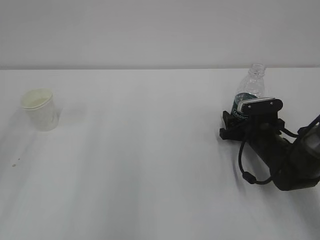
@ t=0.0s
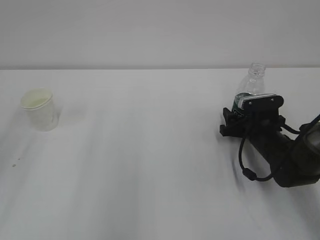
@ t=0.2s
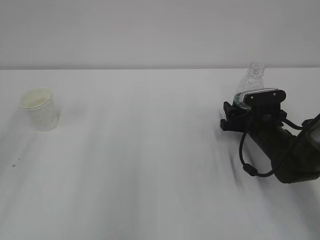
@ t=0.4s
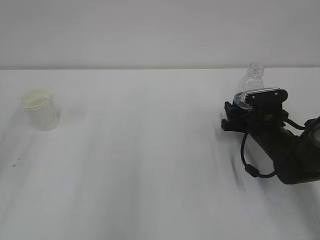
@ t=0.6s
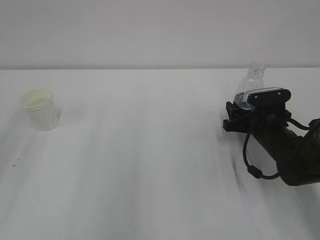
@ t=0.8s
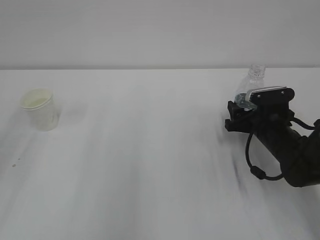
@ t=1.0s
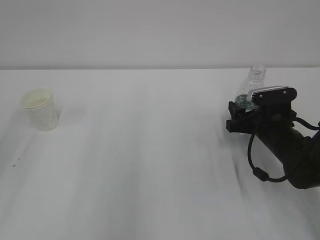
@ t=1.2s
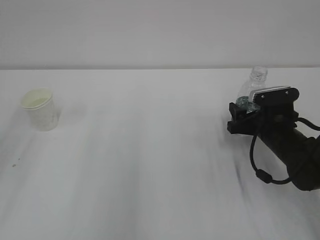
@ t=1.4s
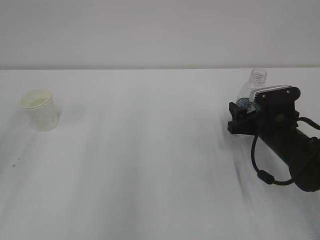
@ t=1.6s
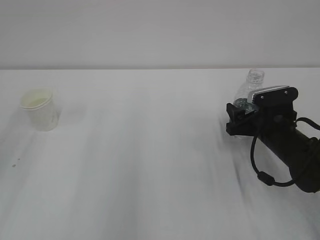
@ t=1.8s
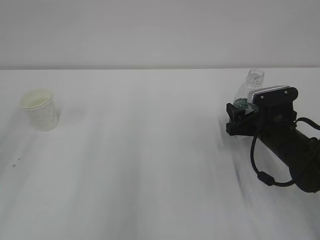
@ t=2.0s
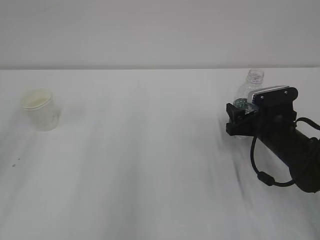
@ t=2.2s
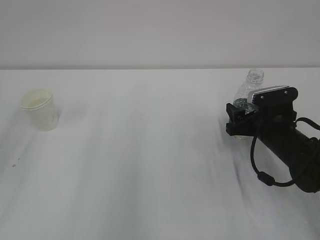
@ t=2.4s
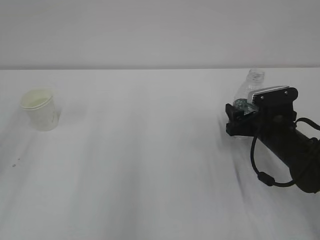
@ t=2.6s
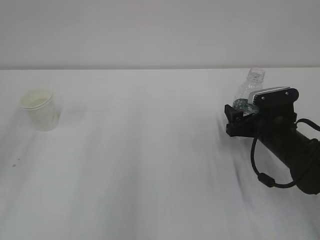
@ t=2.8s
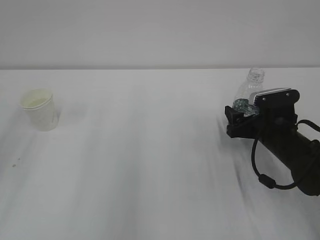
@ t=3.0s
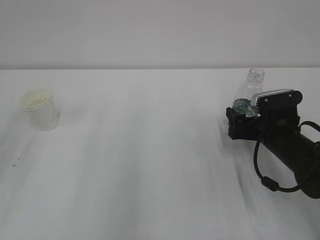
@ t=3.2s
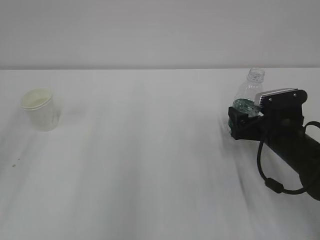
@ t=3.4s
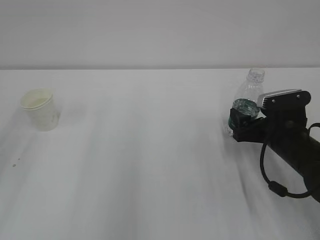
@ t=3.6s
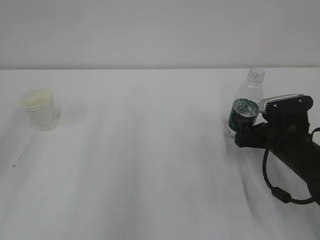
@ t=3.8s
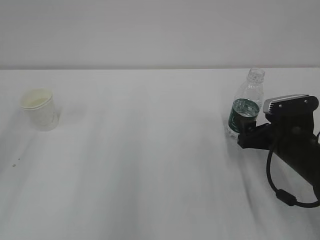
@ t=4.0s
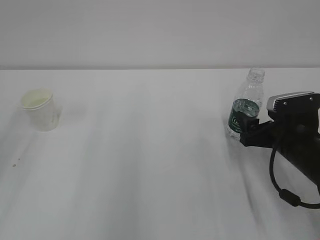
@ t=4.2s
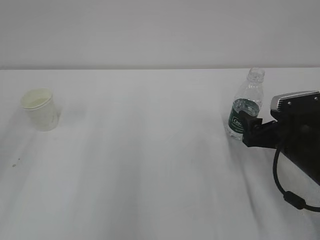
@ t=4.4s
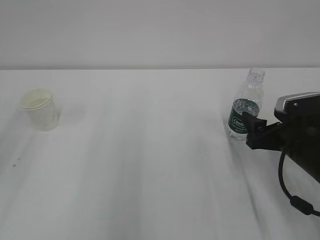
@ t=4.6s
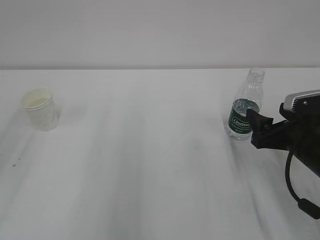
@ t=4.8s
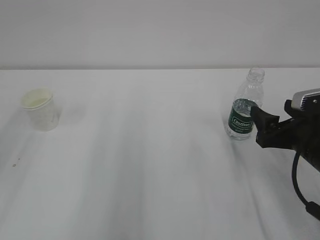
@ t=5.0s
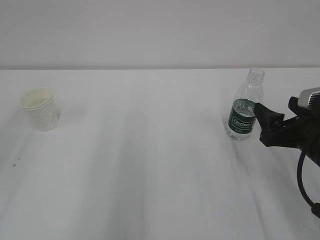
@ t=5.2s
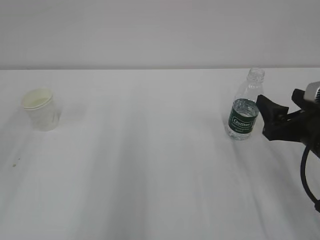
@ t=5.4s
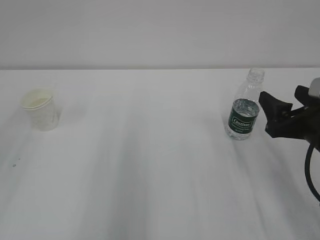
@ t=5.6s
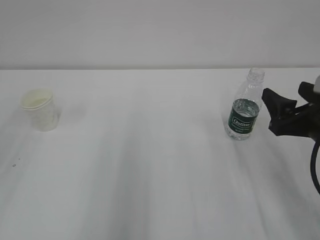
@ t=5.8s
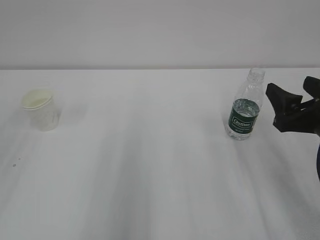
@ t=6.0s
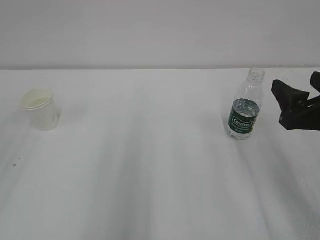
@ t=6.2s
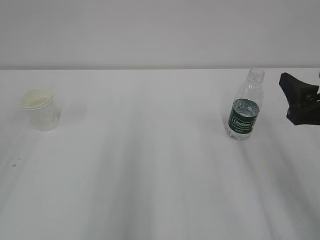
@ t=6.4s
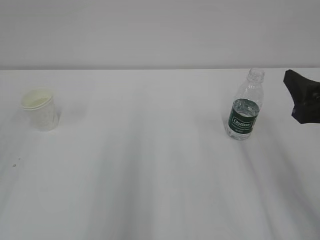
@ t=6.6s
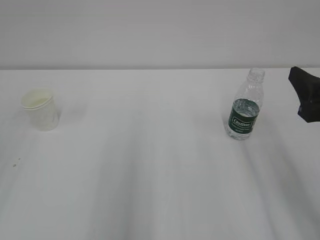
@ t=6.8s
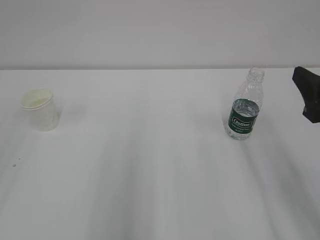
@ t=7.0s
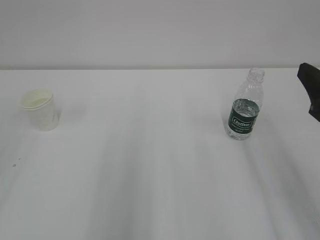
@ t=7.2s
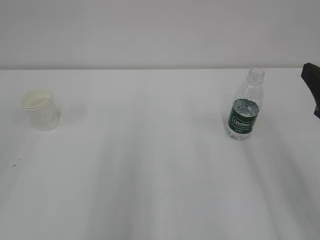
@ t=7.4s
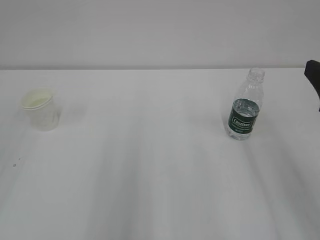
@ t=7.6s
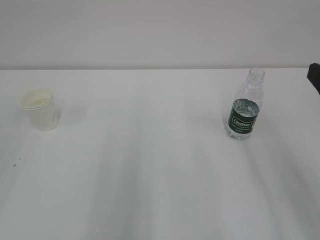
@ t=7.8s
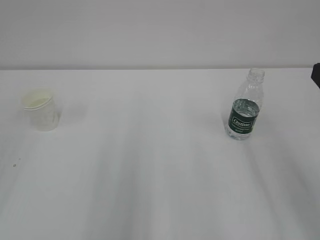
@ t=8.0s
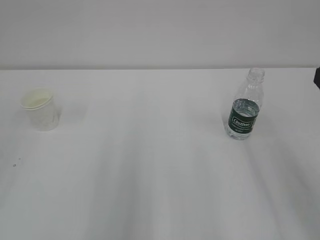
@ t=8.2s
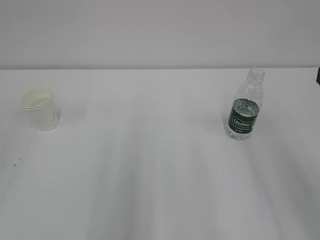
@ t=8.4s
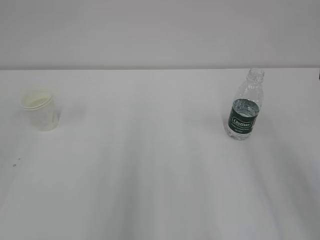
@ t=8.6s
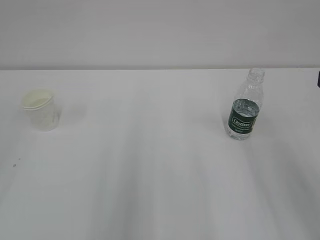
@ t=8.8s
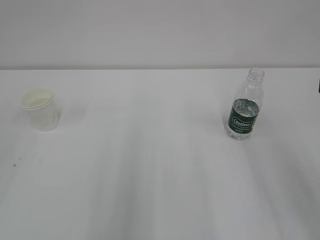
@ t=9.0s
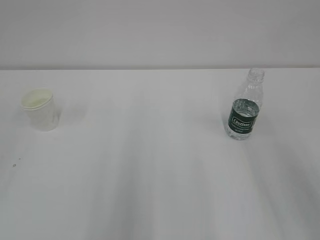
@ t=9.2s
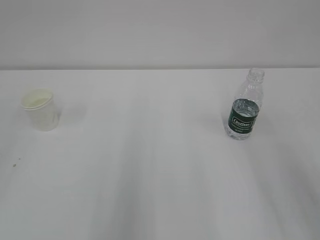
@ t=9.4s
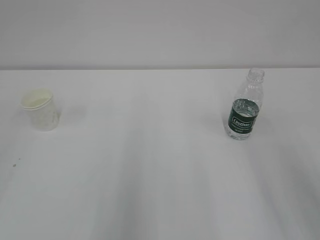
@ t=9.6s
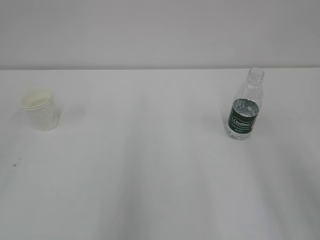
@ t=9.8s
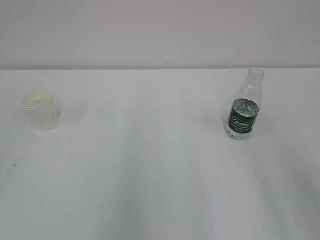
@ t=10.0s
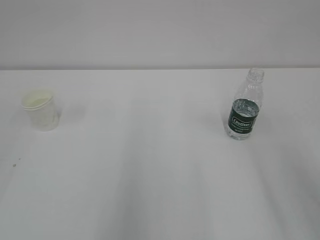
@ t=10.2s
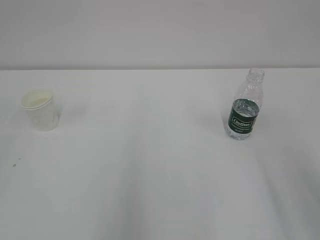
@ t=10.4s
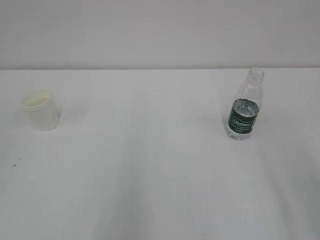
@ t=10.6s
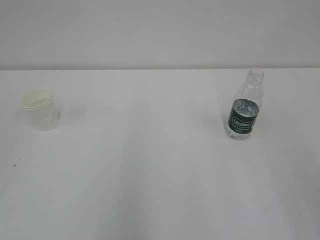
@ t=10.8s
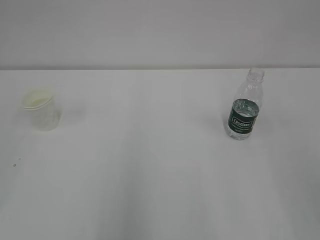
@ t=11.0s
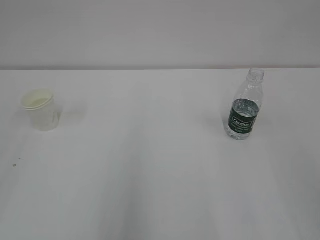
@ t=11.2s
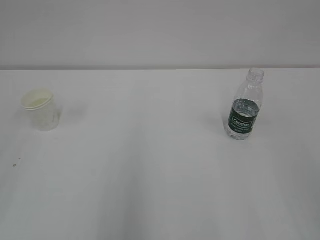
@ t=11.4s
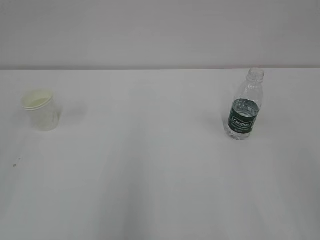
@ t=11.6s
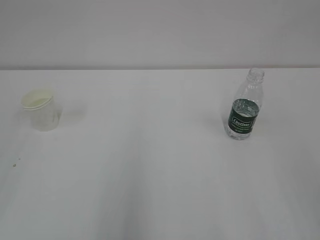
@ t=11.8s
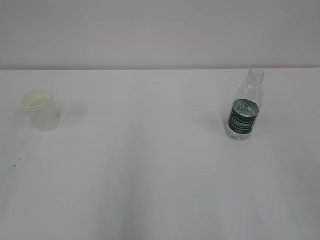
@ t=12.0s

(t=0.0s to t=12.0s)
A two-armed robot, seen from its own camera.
t=0.0s - t=1.6s: The right gripper changes place by approximately 5 cm.
t=1.6s - t=3.0s: The right gripper opens up.
t=3.0s - t=4.4s: The right gripper moves backward, some 5 cm.
t=4.4s - t=6.0s: The right gripper heads upward and backward, covering roughly 10 cm.
t=6.0s - t=7.6s: The right gripper shifts roughly 10 cm upward and backward.

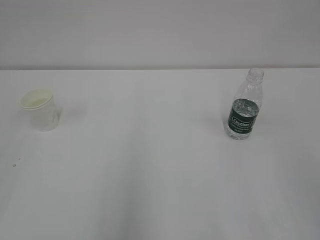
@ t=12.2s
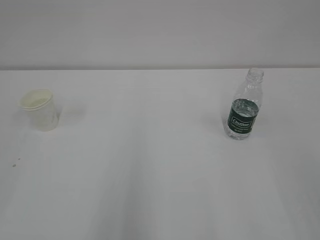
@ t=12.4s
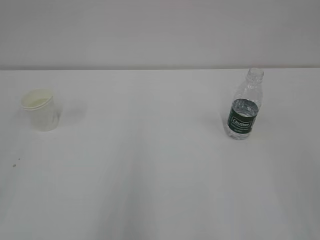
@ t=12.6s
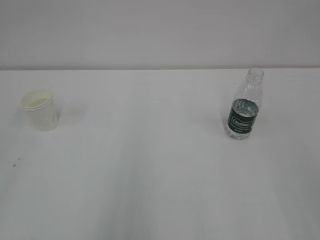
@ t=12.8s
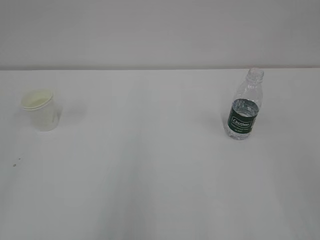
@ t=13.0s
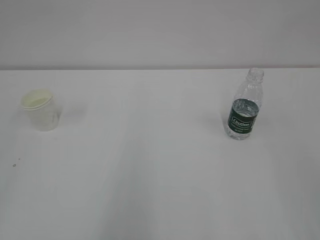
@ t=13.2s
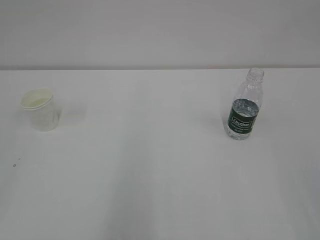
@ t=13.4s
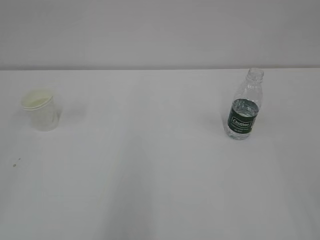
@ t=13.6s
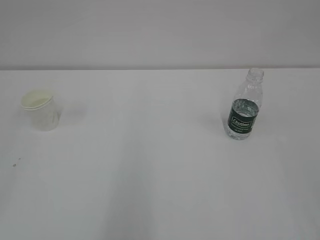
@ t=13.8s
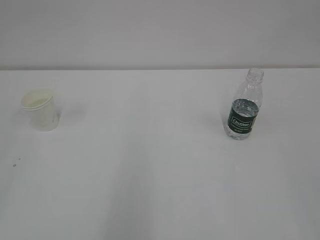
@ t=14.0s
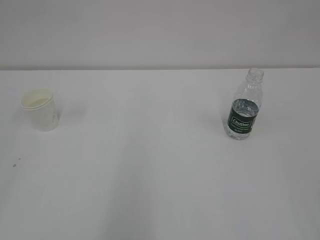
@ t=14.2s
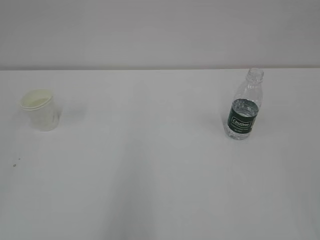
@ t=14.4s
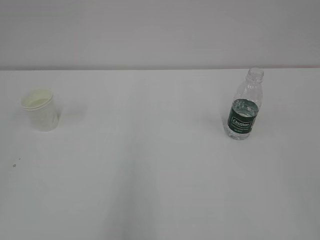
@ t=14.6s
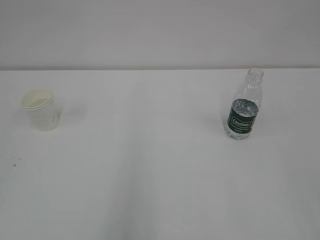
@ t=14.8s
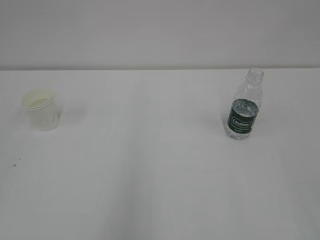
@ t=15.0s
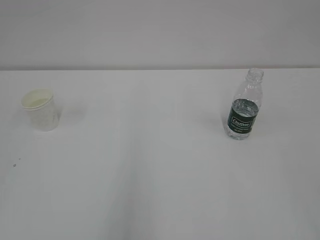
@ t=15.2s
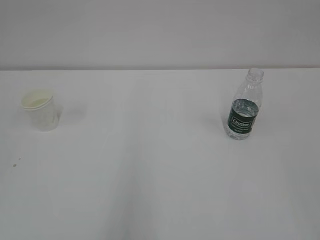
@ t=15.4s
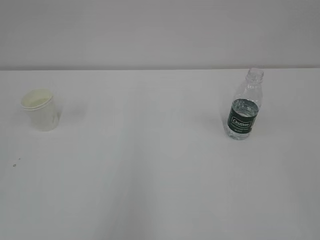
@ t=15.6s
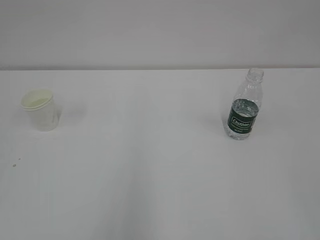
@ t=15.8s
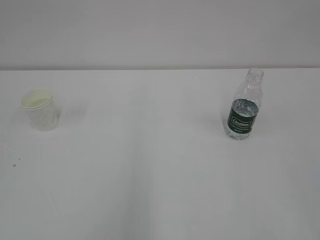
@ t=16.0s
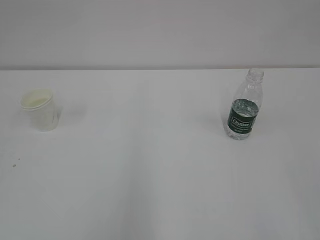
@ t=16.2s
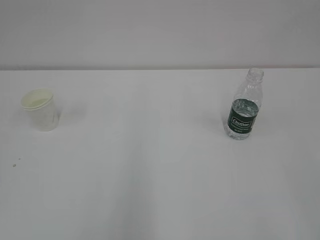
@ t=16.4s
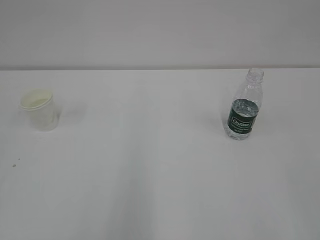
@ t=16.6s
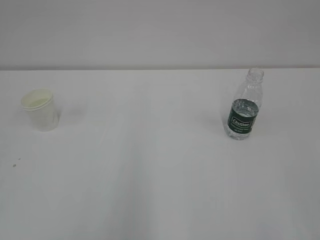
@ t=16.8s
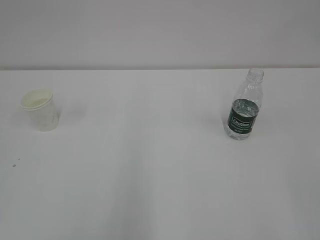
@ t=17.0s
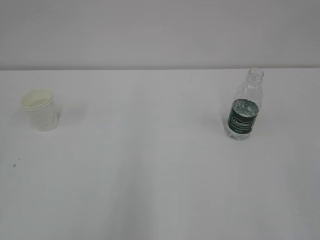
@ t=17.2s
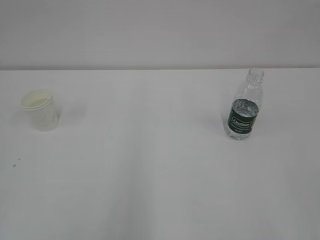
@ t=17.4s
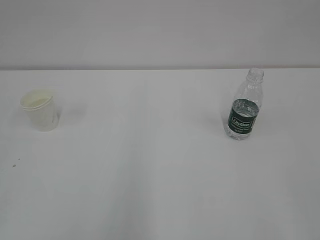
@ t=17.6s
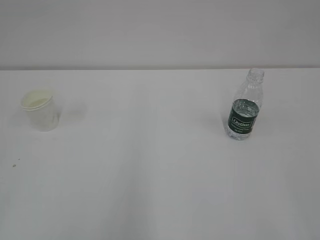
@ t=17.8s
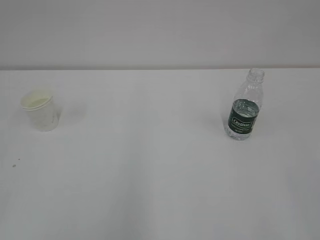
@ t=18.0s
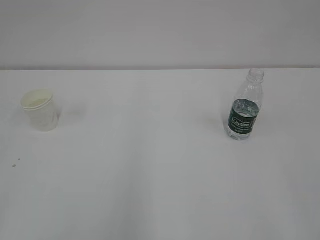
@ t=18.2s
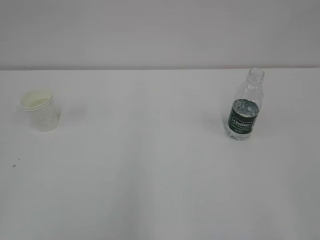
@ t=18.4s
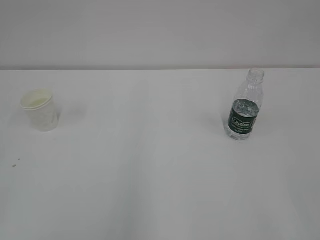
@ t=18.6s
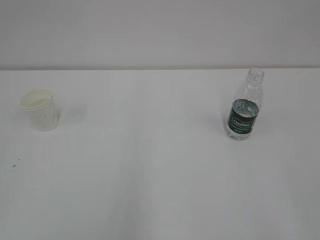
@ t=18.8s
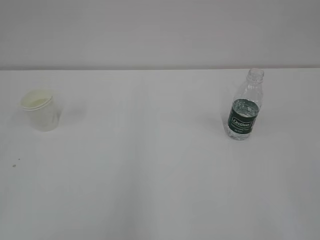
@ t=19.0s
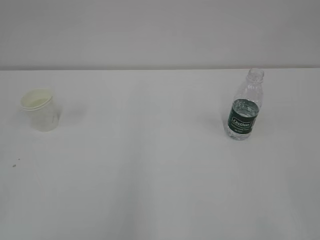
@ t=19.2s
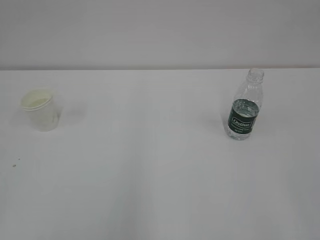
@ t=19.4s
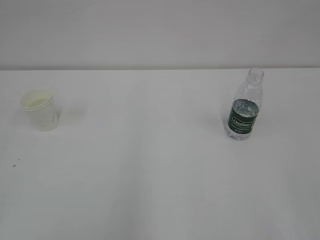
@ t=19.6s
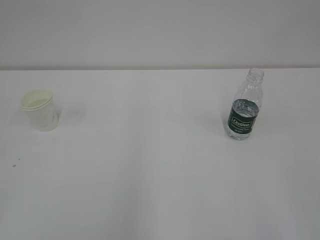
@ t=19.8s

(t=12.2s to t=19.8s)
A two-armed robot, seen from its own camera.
t=18.2s - t=19.8s: The two grippers keep their place.
